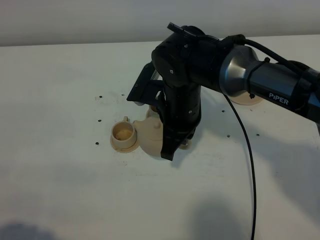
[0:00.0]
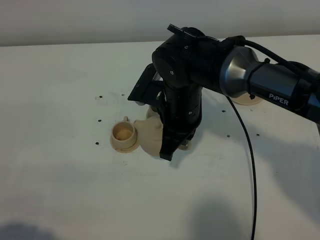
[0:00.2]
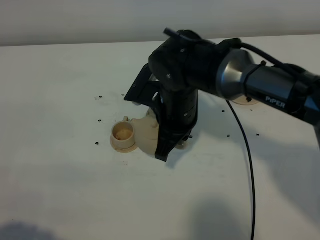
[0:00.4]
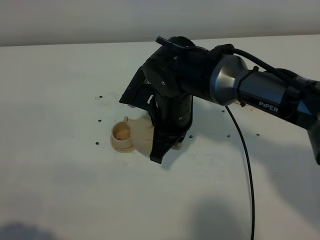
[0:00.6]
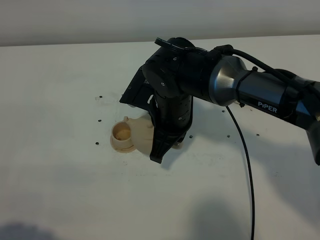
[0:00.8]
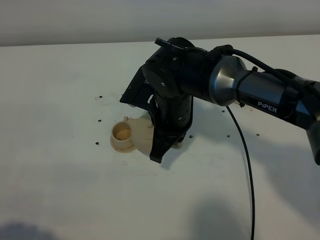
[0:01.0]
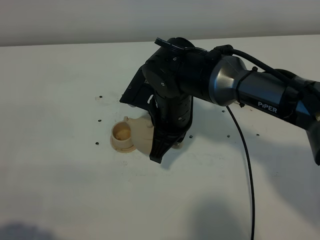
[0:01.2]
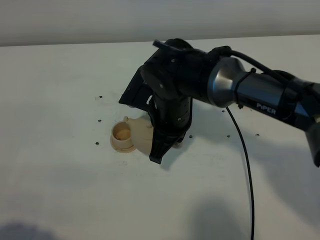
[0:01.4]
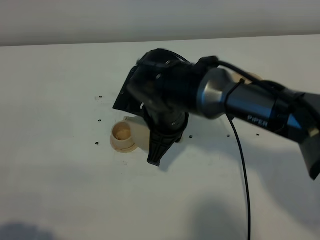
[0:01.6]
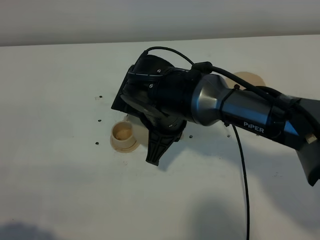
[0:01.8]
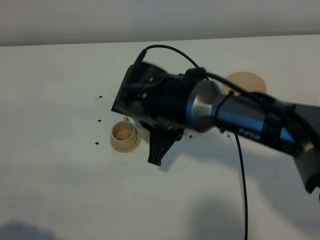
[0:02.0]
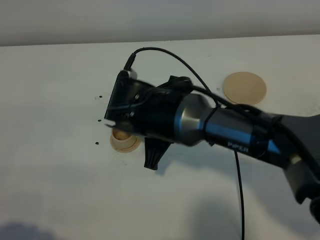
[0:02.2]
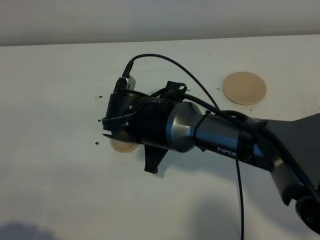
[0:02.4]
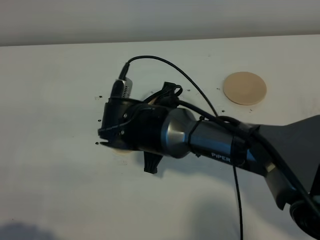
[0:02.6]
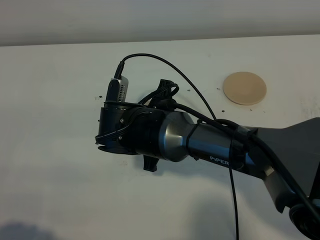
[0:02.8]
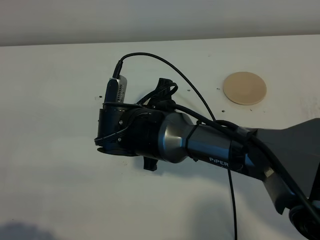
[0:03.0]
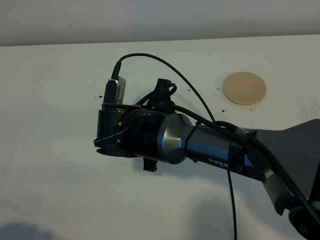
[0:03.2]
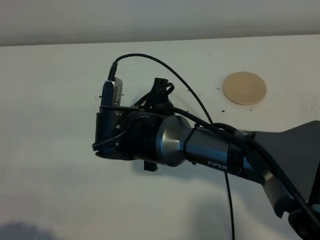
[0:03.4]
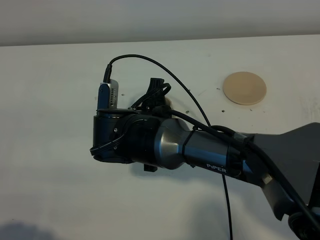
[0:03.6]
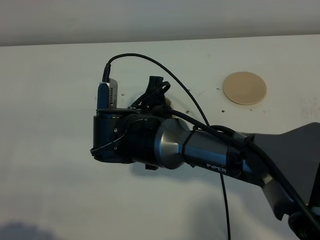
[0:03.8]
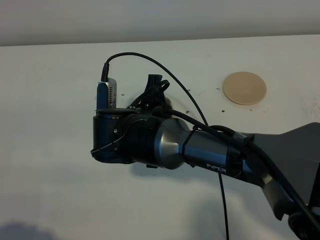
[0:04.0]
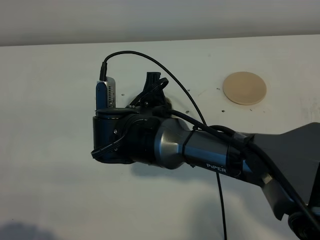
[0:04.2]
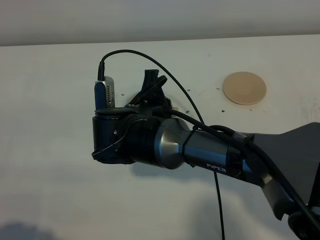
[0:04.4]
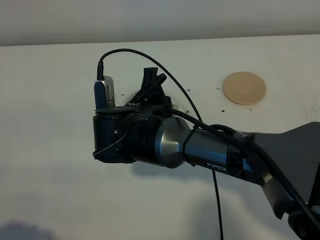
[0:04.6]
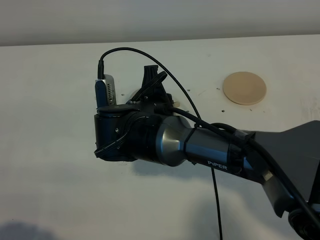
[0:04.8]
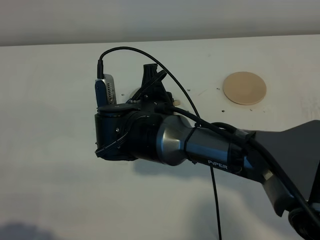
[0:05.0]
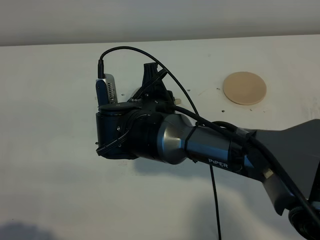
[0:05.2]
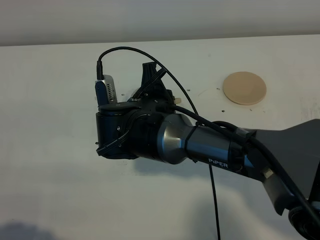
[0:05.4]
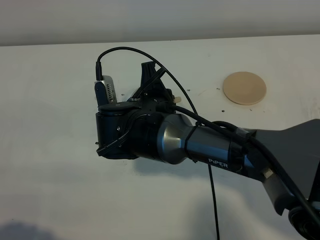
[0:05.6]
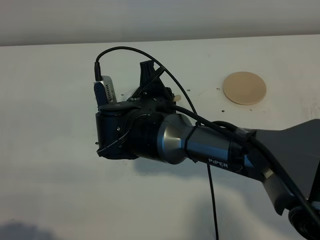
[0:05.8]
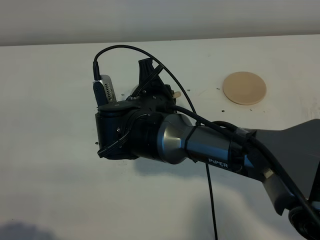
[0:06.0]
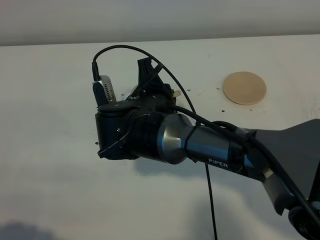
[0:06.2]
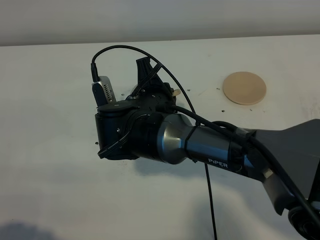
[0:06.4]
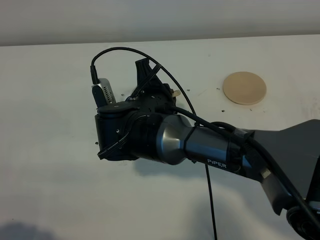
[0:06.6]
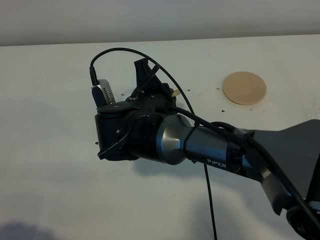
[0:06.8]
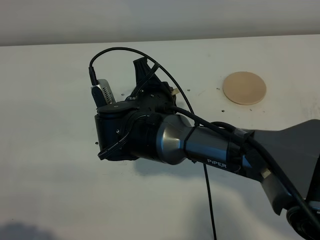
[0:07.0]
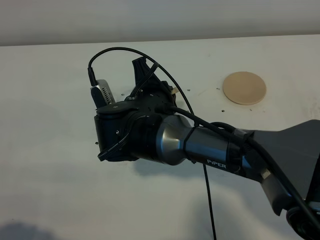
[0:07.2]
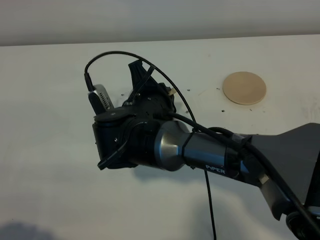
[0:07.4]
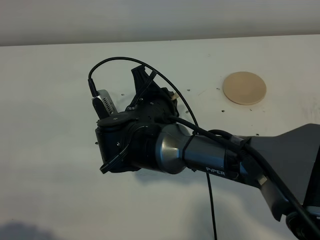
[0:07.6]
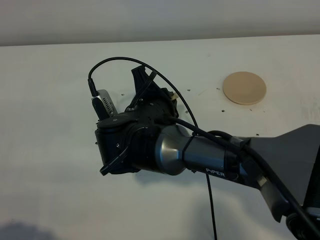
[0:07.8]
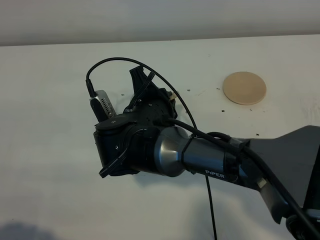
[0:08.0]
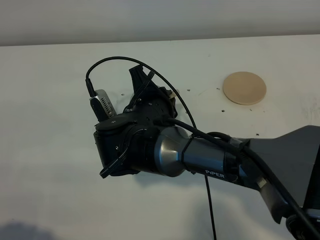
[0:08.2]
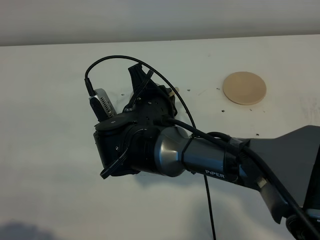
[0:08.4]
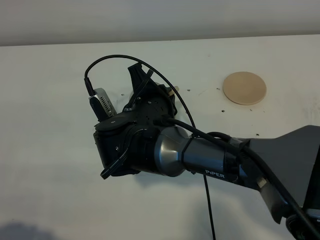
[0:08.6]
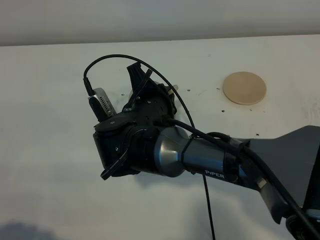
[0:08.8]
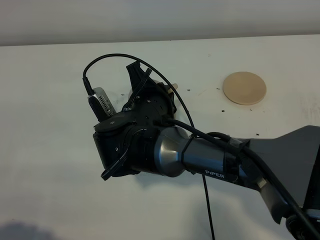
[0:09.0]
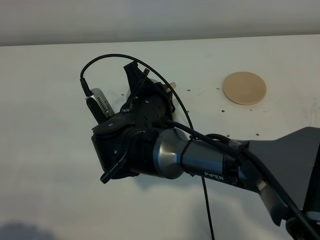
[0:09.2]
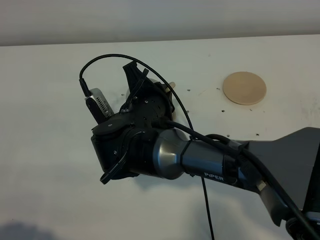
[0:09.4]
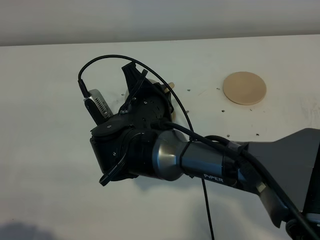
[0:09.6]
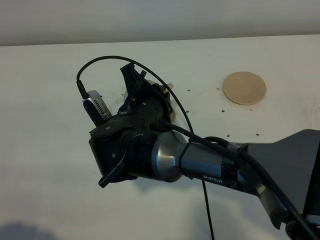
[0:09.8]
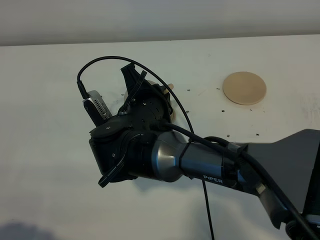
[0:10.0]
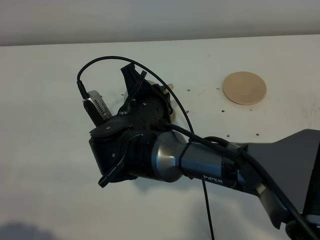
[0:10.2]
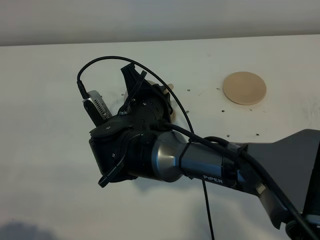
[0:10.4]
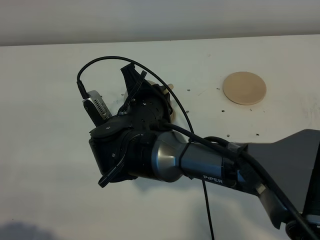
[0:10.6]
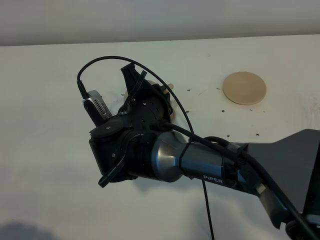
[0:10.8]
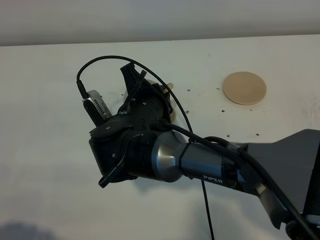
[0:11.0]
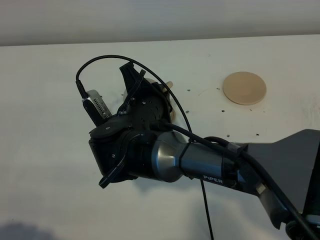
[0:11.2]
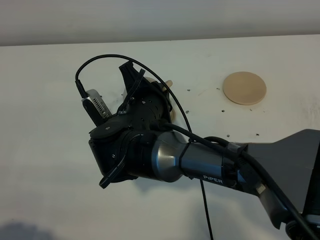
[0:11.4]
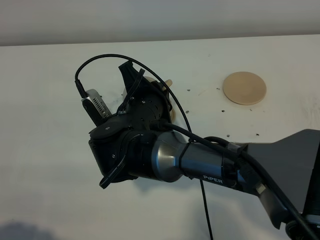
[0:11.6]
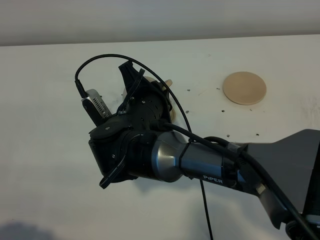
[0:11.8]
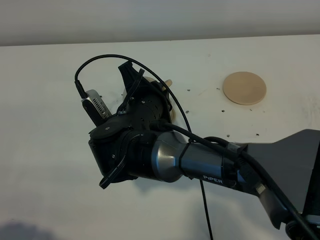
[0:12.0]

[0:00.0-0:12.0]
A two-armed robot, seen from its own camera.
Task of the whole recording: grasp the brown teapot and pour the tea into the two brown teacups one by one, put the brown teapot back in its original place.
0:03.0 to 0:04.4: The grippers stay close to where they were, moving slightly.
0:04.4 to 0:06.0: The grippers stay close to where they were, moving slightly.
0:06.0 to 0:07.6: The grippers move only a little.
0:07.6 to 0:09.0: The two grippers keep their place.
0:09.0 to 0:12.0: Neither gripper changes place.

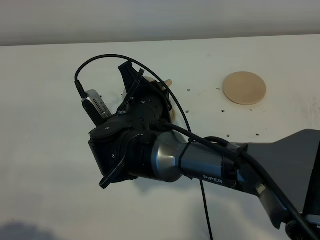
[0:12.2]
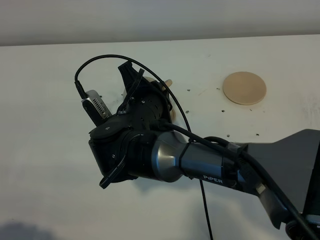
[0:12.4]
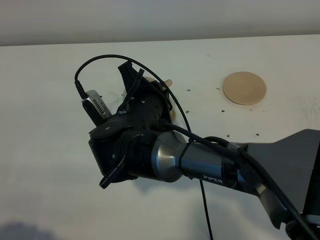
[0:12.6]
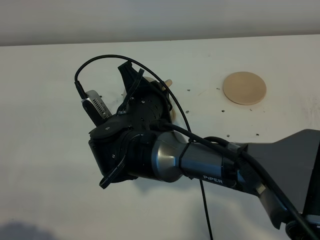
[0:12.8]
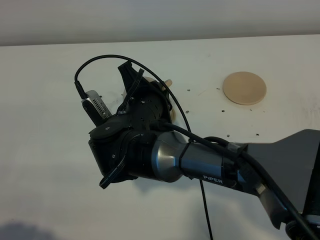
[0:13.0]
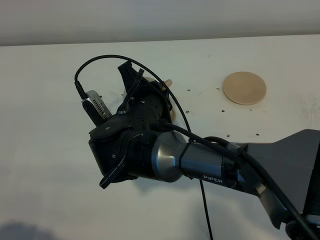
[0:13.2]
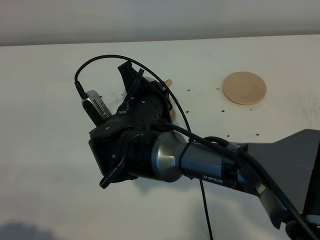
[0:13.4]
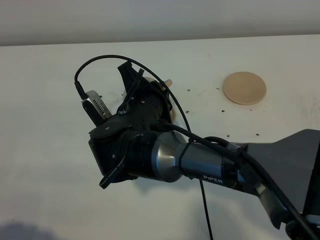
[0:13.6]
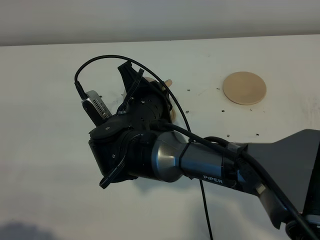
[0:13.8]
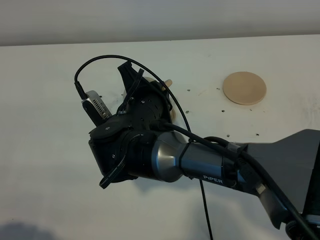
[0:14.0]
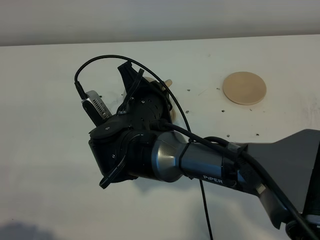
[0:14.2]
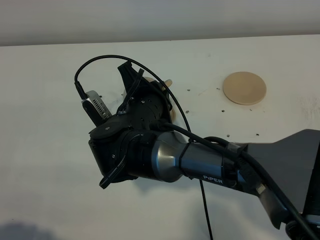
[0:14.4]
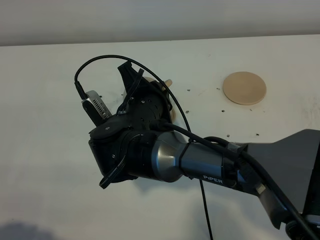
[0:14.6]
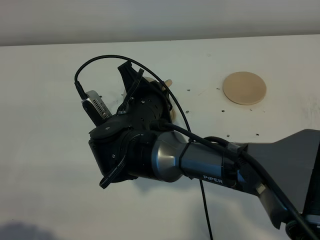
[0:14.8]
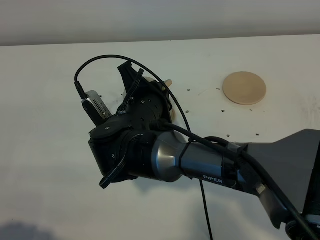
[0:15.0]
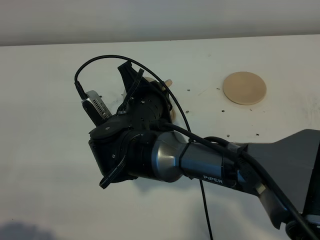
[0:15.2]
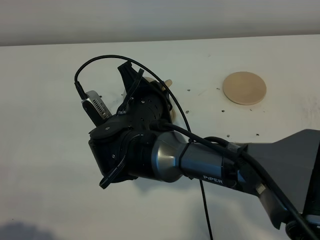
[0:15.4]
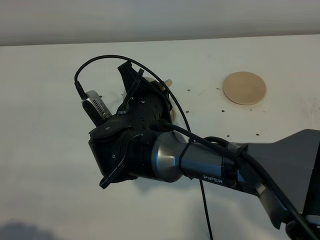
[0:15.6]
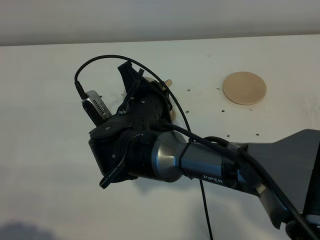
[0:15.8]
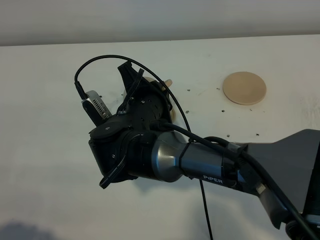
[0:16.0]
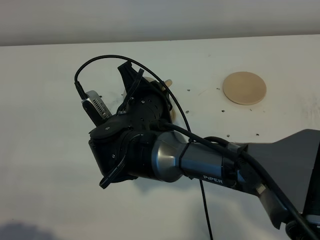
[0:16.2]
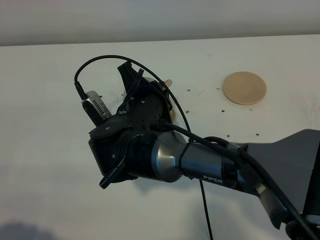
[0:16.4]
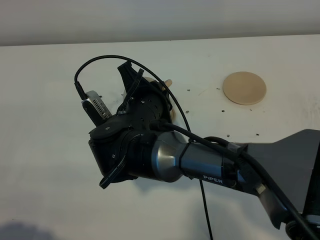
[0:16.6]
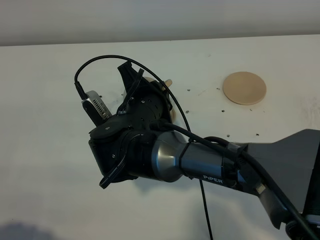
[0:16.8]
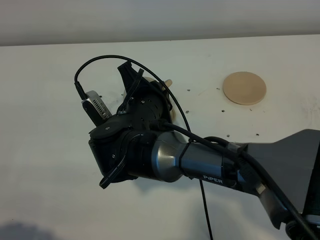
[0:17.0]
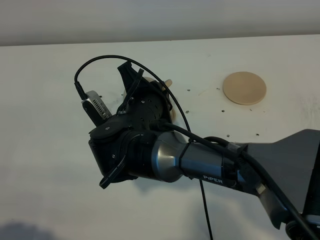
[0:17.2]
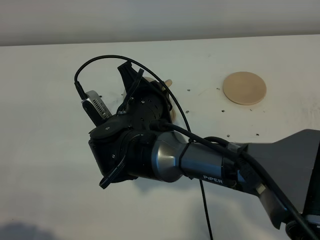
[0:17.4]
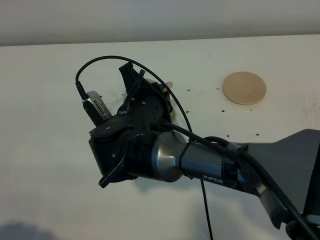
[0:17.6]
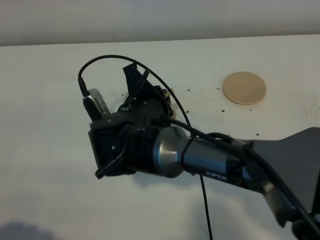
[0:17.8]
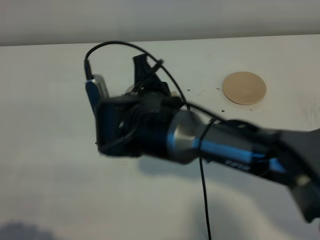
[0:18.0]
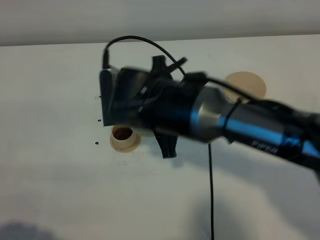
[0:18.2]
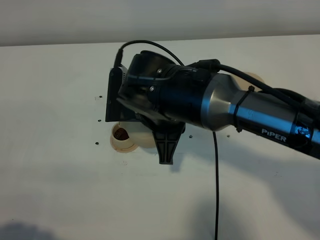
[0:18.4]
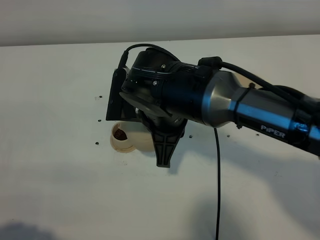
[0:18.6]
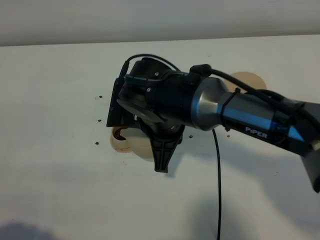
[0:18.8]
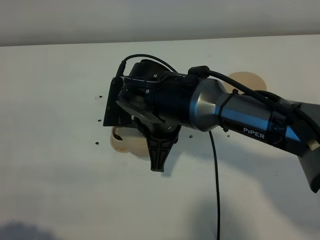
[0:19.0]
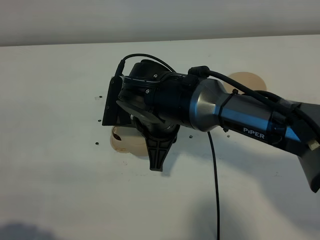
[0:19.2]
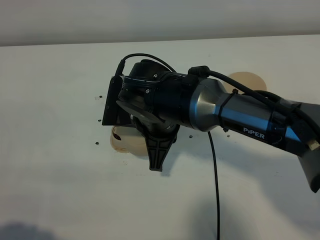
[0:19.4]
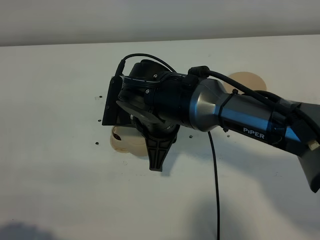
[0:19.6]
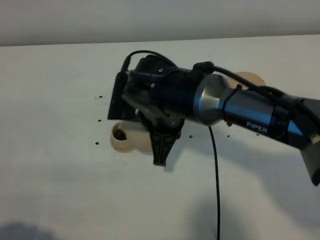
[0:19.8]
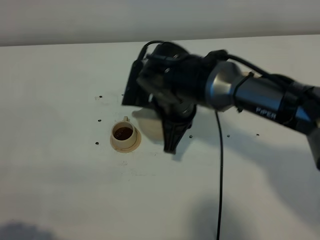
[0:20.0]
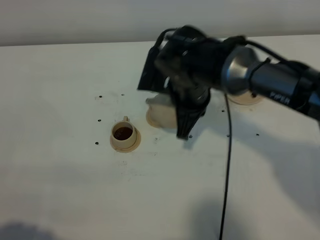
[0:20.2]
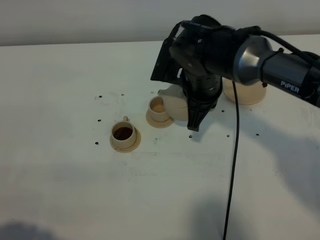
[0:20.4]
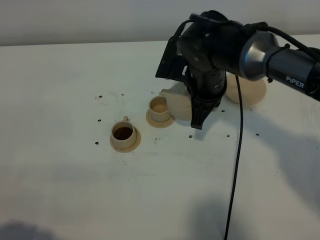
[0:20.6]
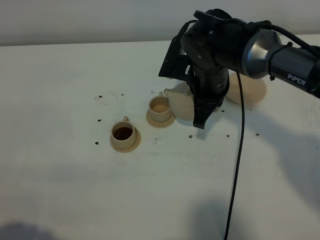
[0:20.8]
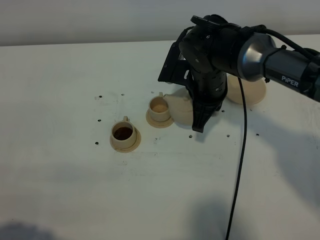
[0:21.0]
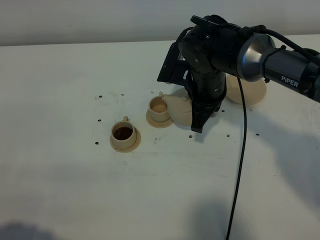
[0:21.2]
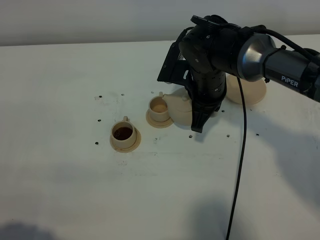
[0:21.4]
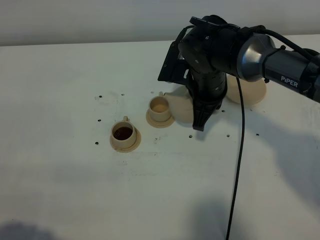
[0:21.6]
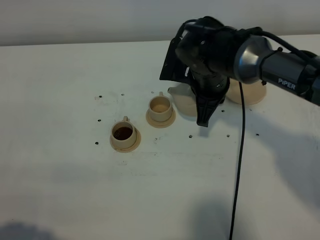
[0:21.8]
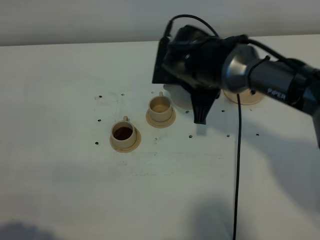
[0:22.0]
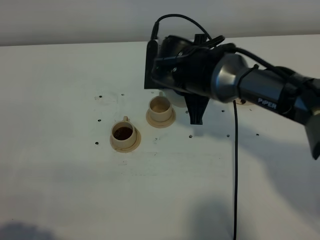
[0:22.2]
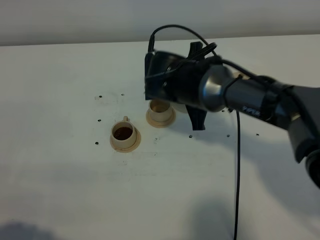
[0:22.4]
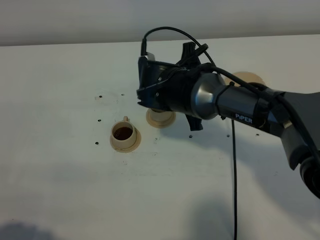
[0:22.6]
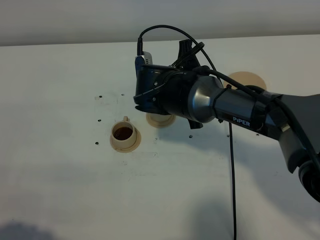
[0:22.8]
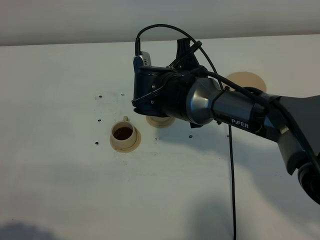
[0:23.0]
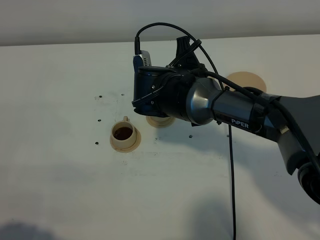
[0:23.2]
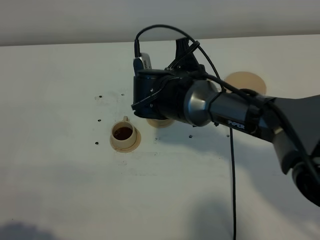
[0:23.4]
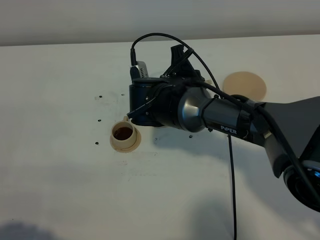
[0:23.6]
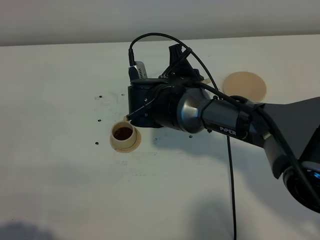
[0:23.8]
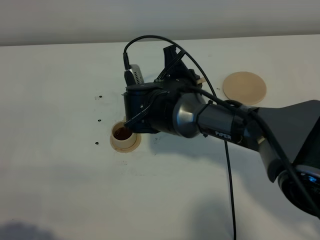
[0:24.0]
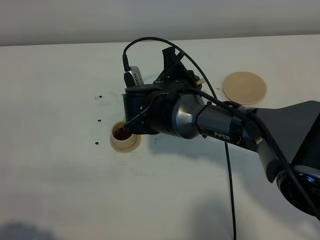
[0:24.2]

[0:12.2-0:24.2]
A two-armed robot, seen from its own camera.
Task of the whole recording: grasp the brown teapot and pour the tea into the two brown teacups one by one, put the brown teapot back in its original place.
Step, 0:12.2 to 0:17.8: Pour tea into the teacup with the right gripper.
0:12.2 to 0:16.6: Both grippers stay put.
0:16.6 to 0:18.2: The right gripper moves roughly 5 cm.
0:18.2 to 0:19.8: The grippers move only a little.
0:19.8 to 0:21.2: The right gripper shifts roughly 10 cm to the right and forward.
0:21.2 to 0:22.6: The right gripper moves about 5 cm.
0:22.6 to 0:24.2: The grippers make only small movements.
